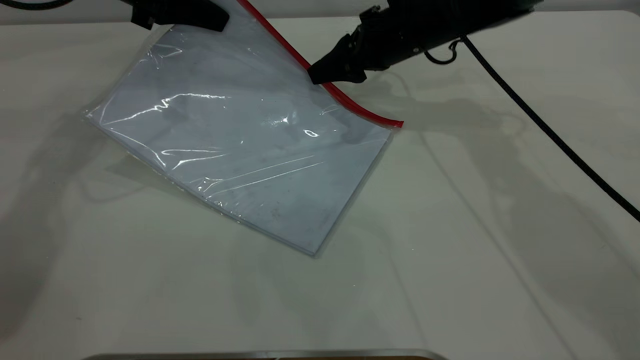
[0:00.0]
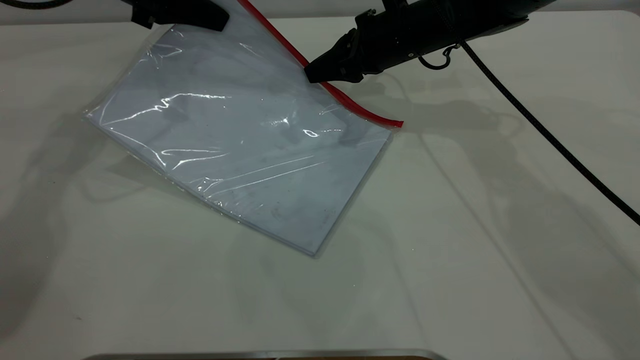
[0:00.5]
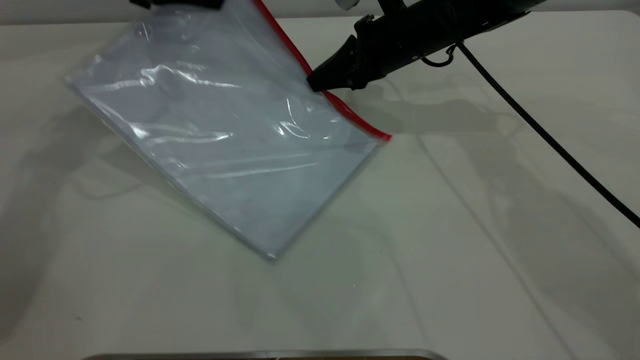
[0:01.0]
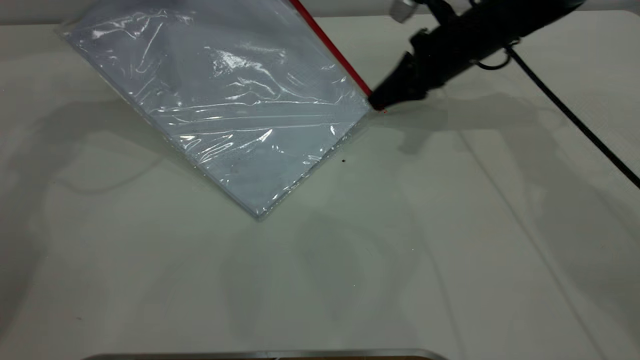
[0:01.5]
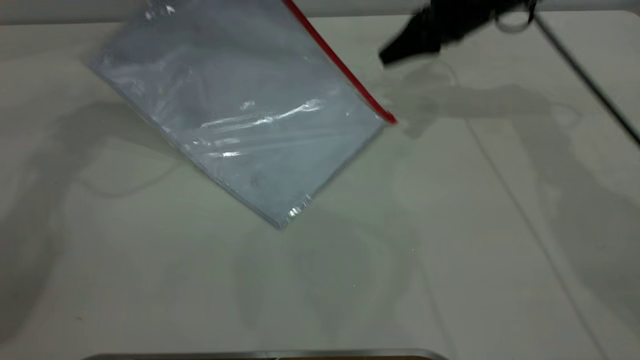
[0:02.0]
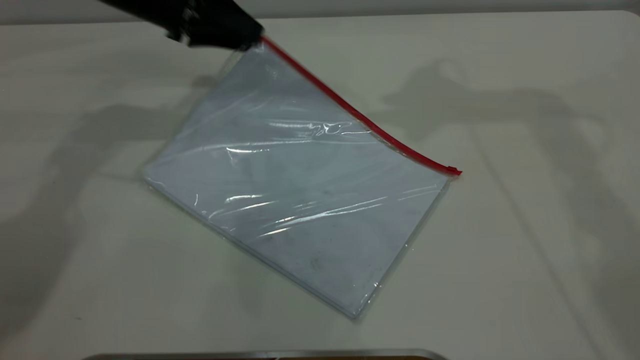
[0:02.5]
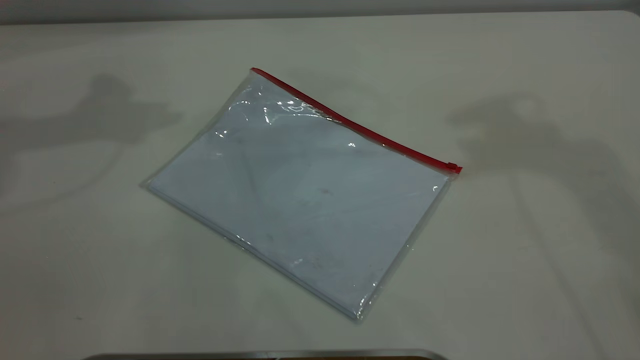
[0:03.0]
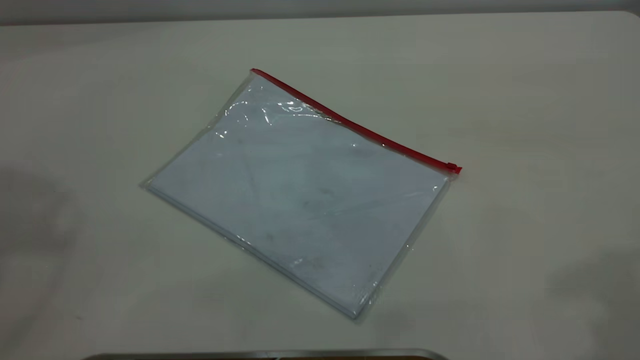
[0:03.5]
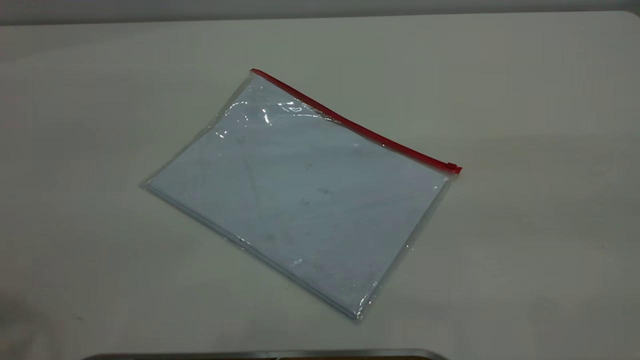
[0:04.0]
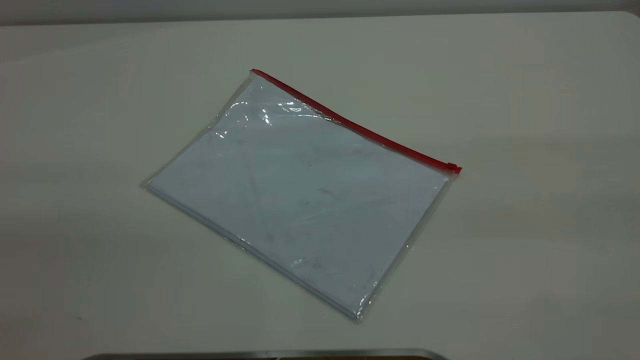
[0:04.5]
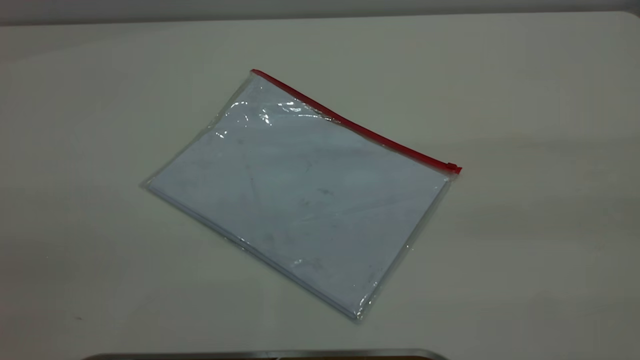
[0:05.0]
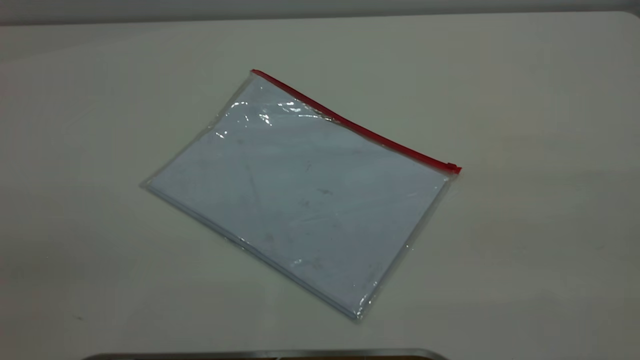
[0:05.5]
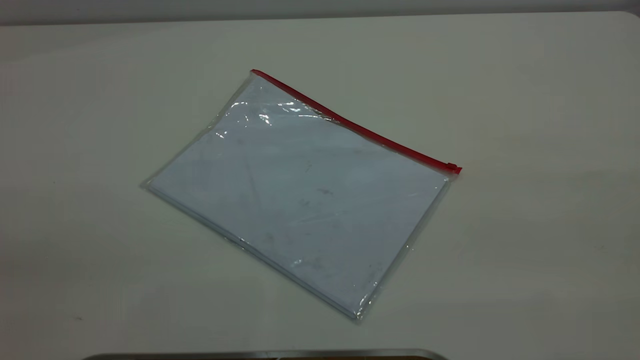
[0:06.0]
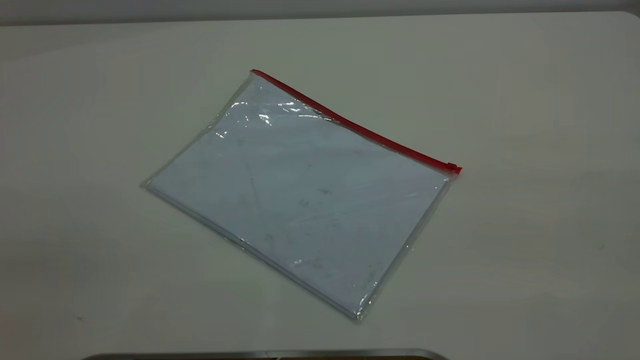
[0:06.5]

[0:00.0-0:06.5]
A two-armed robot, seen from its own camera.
Step, 0:02.0 to 0:02.5: Place the transparent plastic bag.
0:00.0 to 0:02.0: The right gripper goes about 10 cm to the right and upward, and closes and opens again.
0:02.0 to 0:04.5: The right gripper is displaced backward and upward by roughly 50 cm. The left gripper heads backward, covering about 50 cm, and opens.

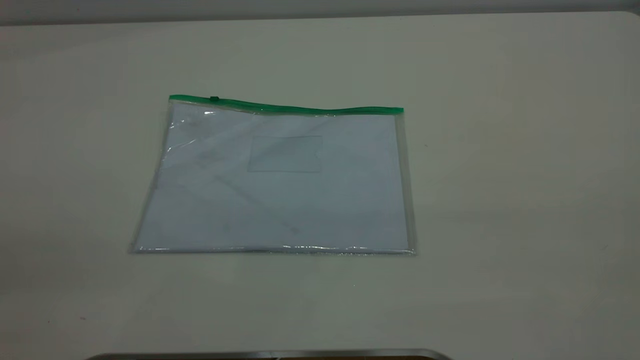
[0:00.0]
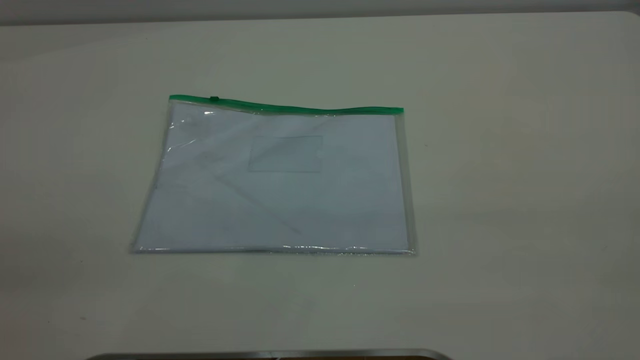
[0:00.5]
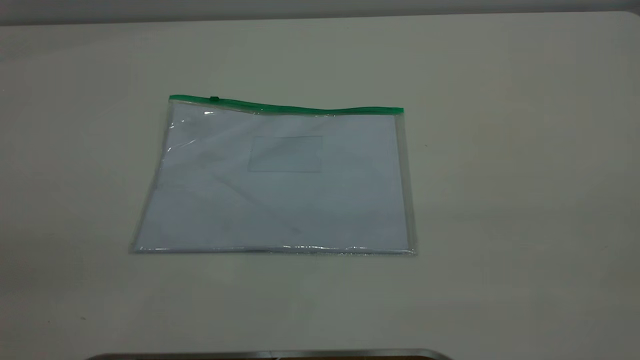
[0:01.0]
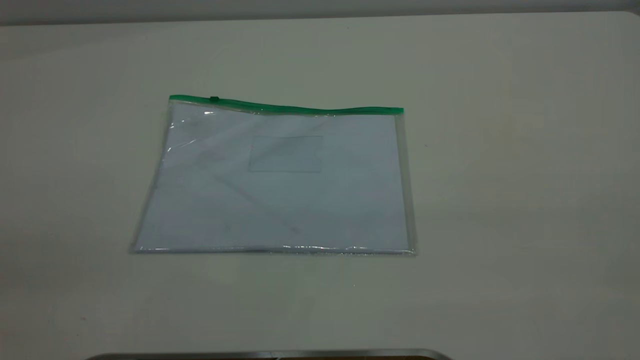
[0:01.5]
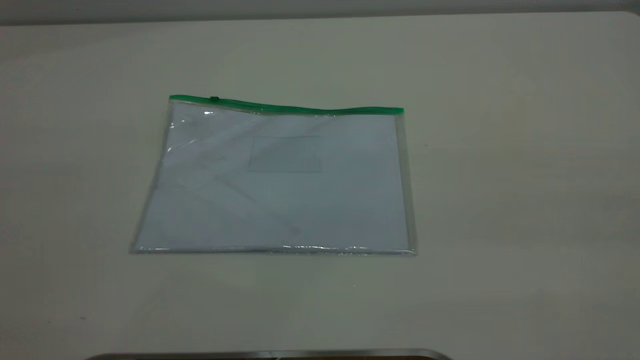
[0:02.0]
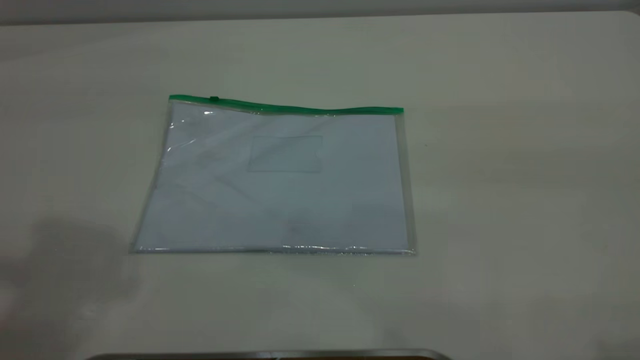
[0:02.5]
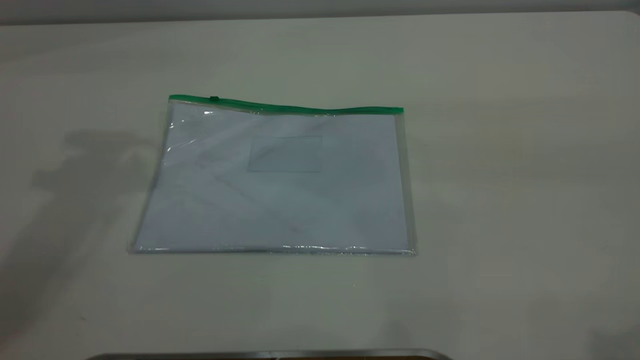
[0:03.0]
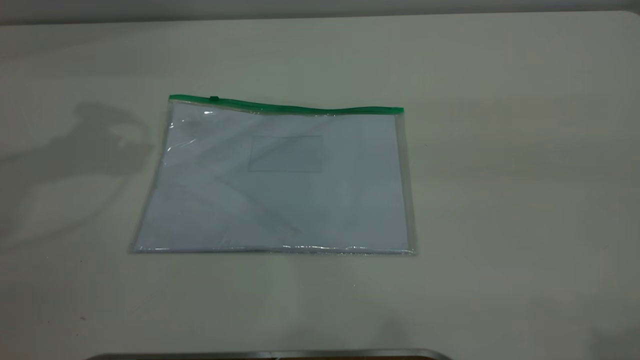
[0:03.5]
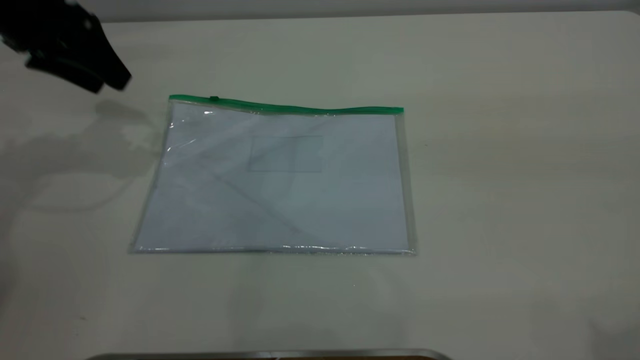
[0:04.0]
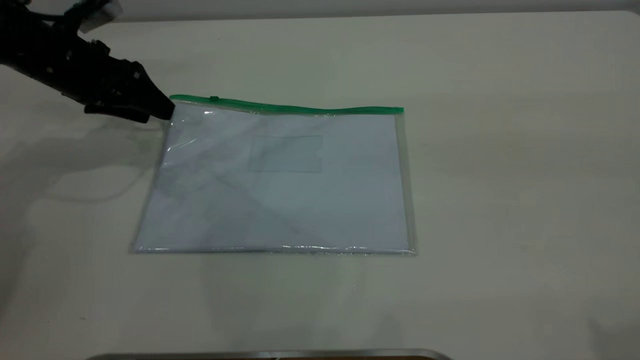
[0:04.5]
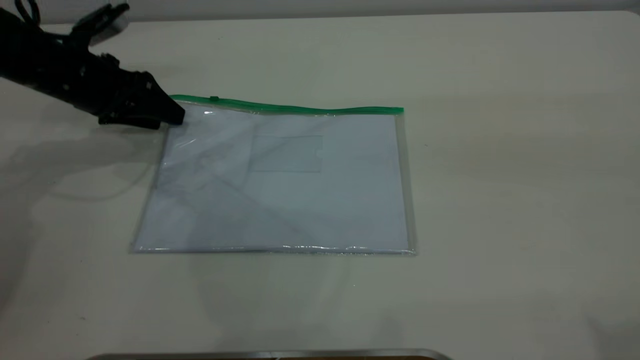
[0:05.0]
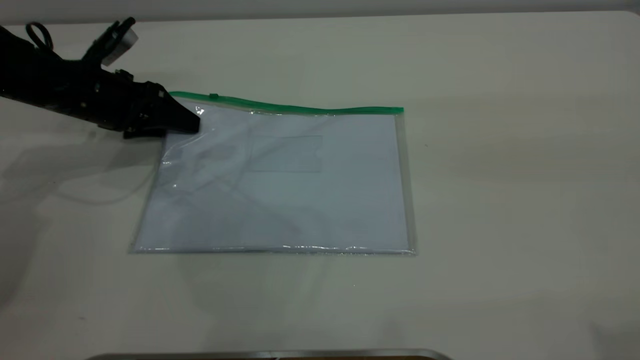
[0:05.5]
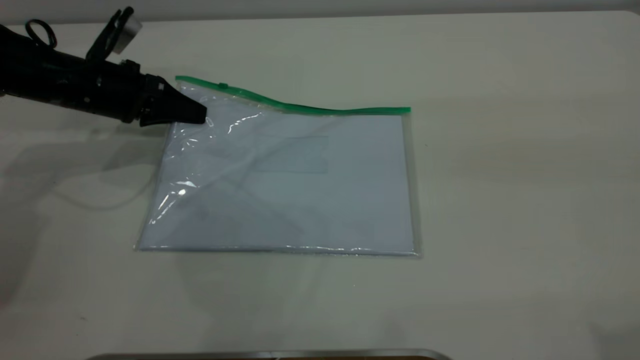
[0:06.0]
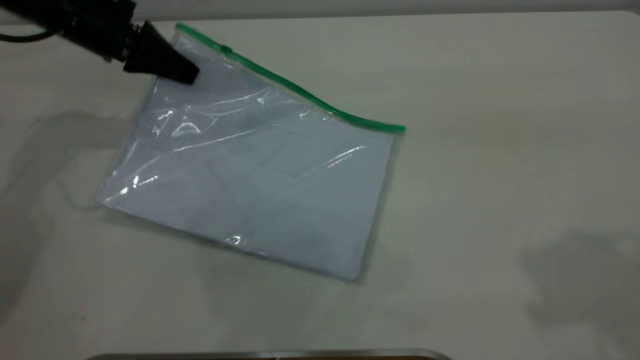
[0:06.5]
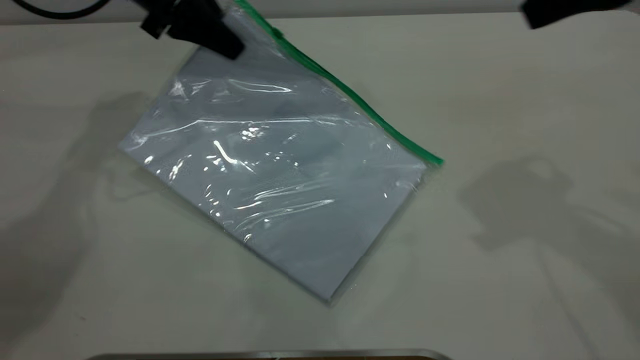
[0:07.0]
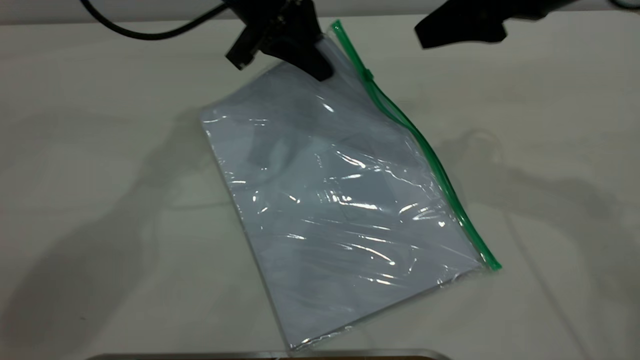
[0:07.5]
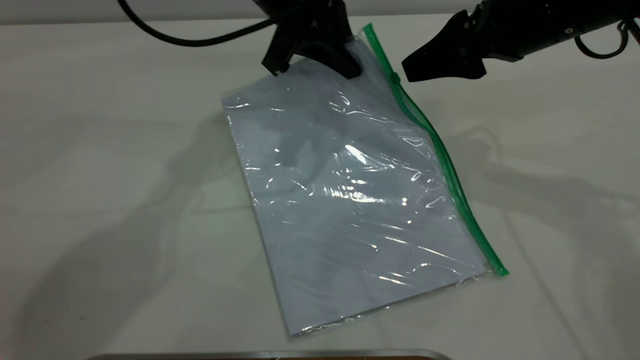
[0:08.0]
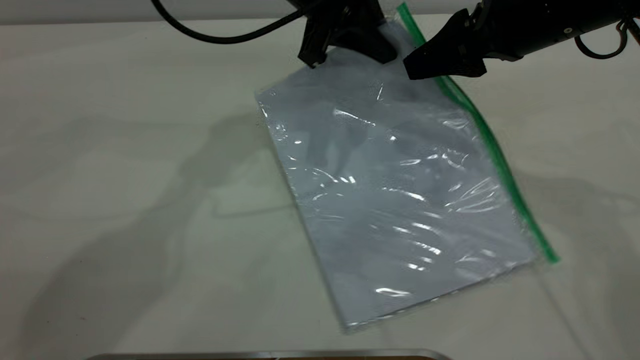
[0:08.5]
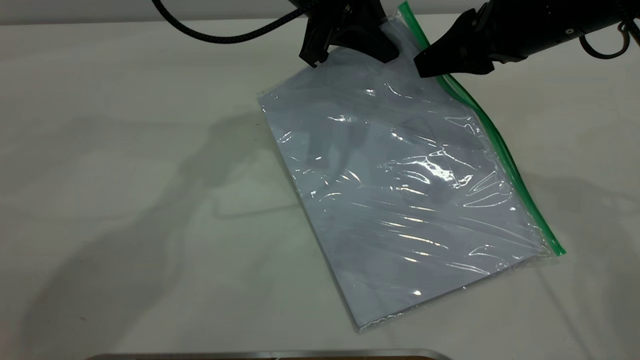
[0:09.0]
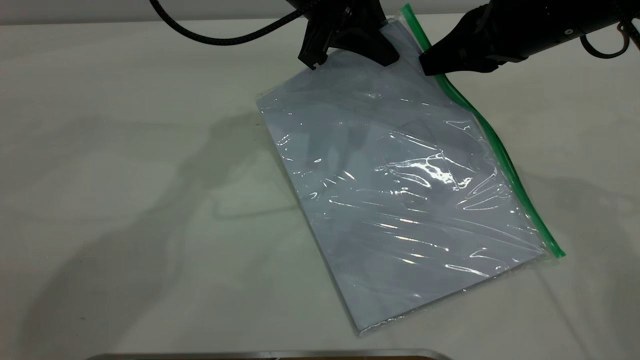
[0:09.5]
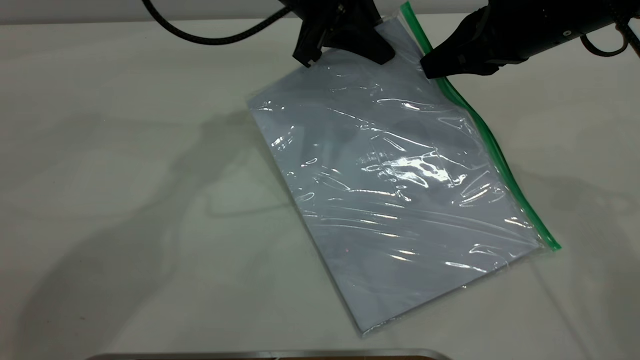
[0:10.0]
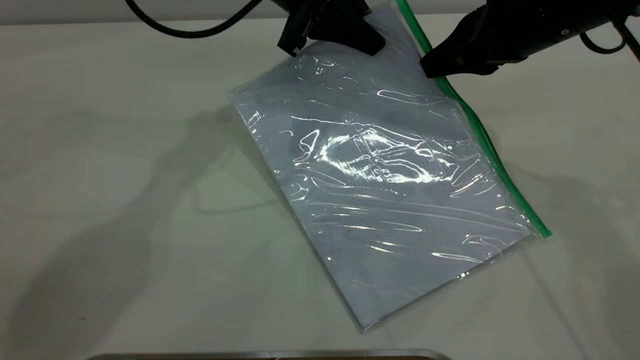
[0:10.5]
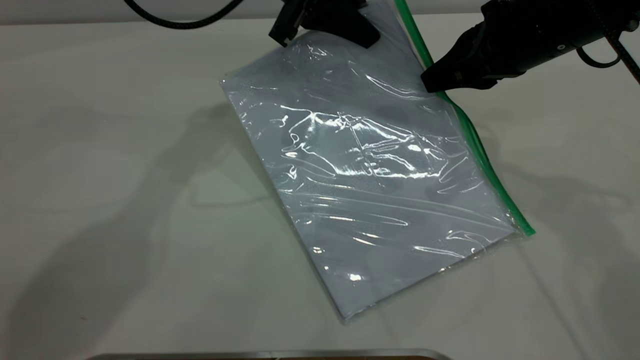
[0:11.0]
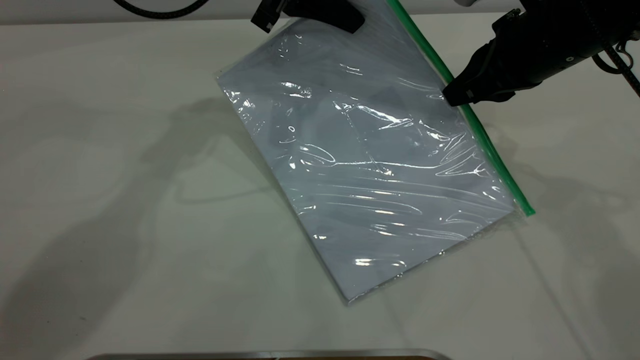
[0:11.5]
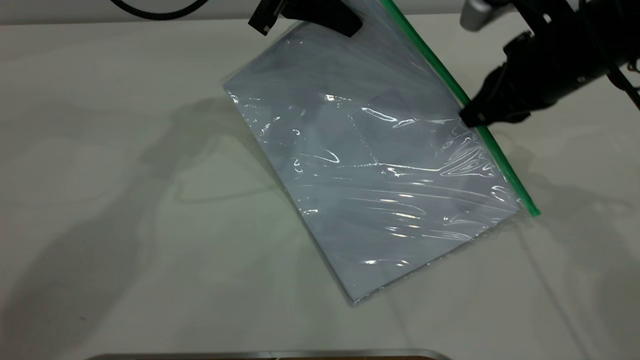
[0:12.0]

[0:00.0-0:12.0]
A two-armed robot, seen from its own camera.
Step, 0:00.0 to 0:06.0: Pick up the transparent plastic bag with the left gripper.
0:02.0 to 0:04.0: The left gripper moves forward and downward, approximately 40 cm.
0:04.0 to 0:06.0: The left gripper heads downward, covering some 10 cm, and closes up.
0:06.0 to 0:08.0: The right gripper moves forward and downward, roughly 30 cm, while the left gripper shifts some 25 cm to the right and upward.
0:08.0 to 0:10.0: The right gripper closes up.
0:10.0 to 0:12.0: There are only small adjustments of the grippers.

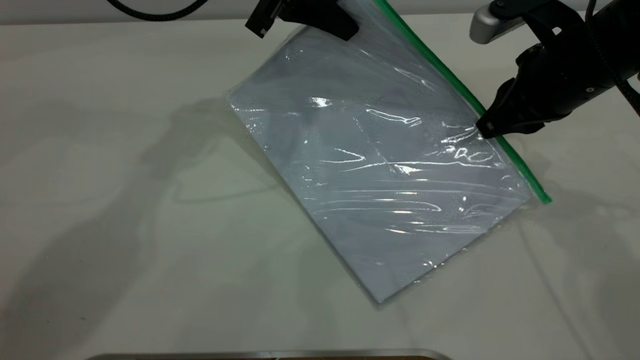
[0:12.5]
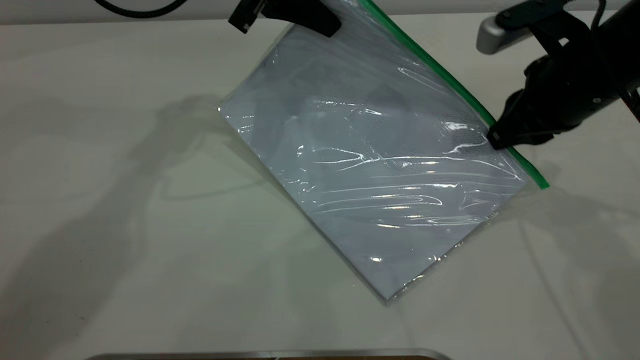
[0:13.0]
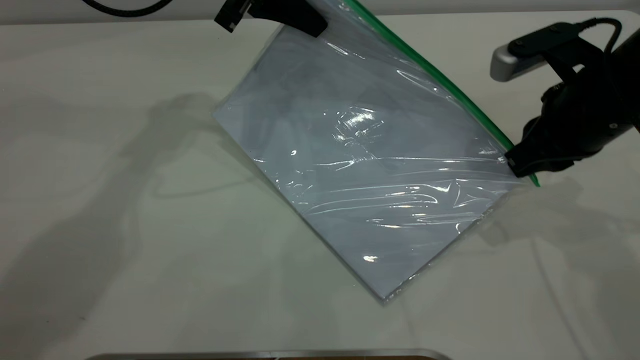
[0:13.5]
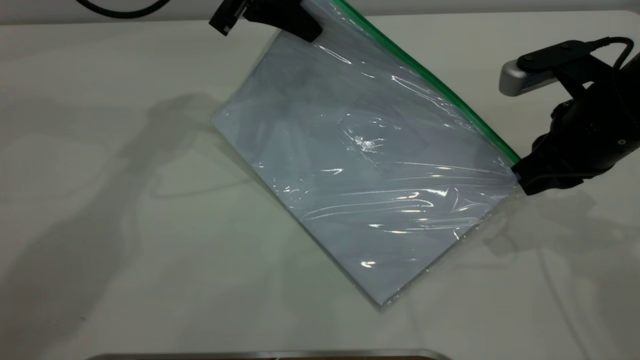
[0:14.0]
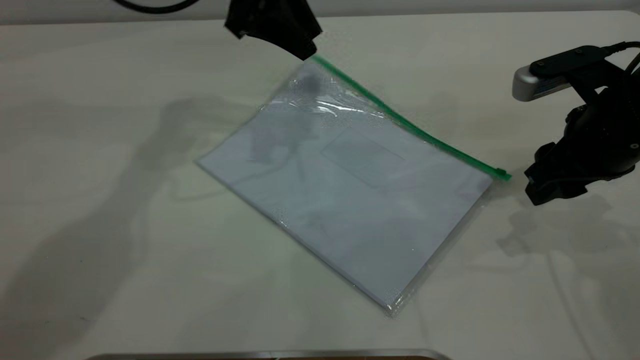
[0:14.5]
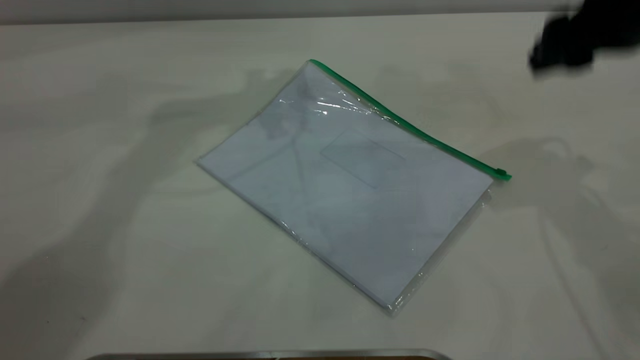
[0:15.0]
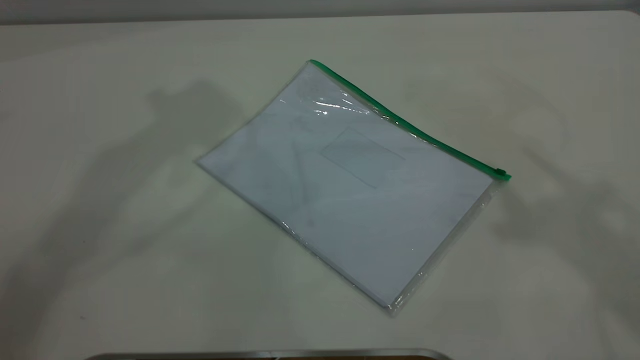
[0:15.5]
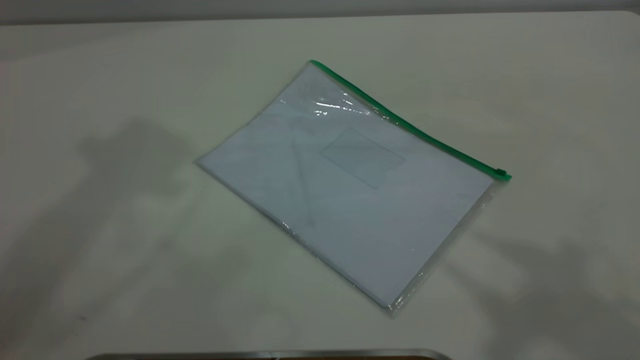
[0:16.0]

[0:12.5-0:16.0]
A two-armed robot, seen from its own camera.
0:12.5 to 0:14.5: The right gripper ends up approximately 5 cm from where it was, and opens; the left gripper opens.
0:14.5 to 0:16.0: The left gripper goes some 40 cm upward and backward, while the right gripper moves upward, about 35 cm.
